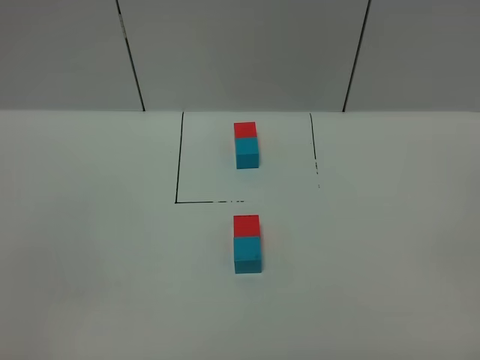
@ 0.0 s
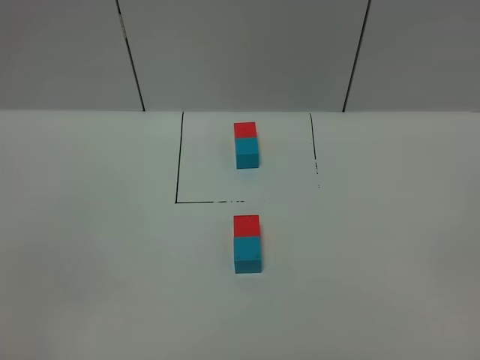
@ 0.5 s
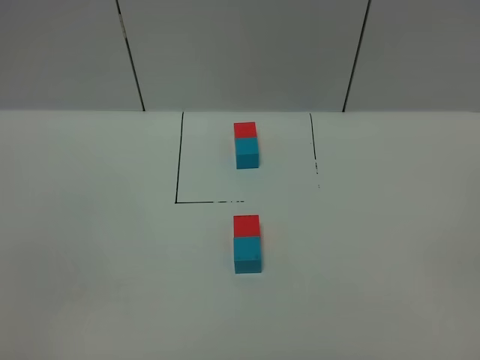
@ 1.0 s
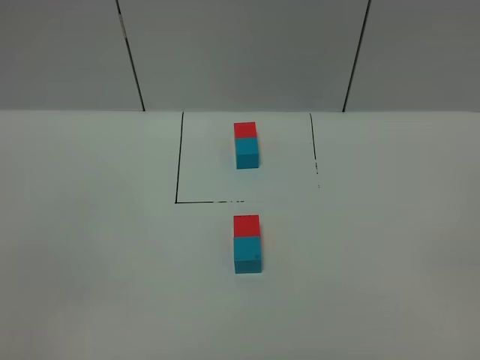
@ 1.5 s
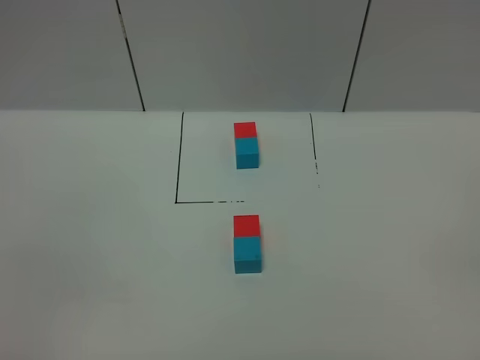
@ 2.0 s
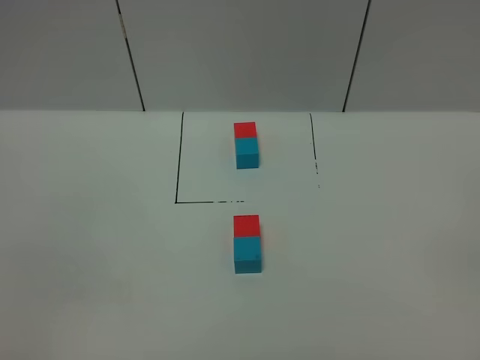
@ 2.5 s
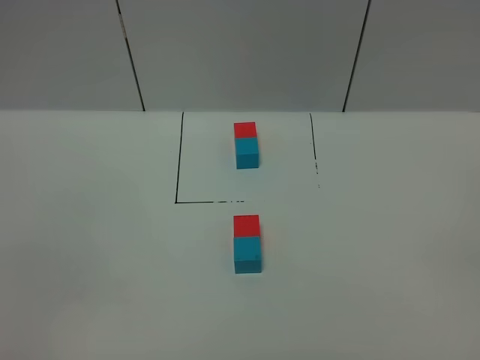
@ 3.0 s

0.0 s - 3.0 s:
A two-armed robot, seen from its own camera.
Task of the whole recording: According to the building block template in front, assemble the scattered blocks together.
1.5 s - 3.0 s: Both grippers stay put.
